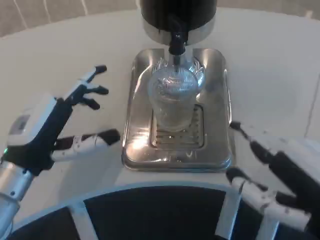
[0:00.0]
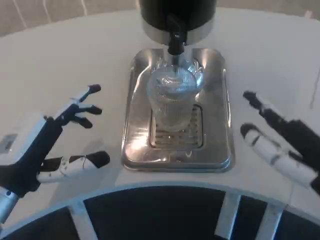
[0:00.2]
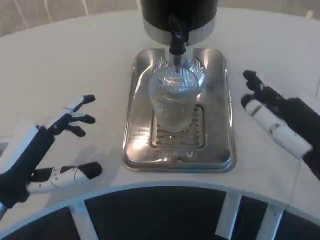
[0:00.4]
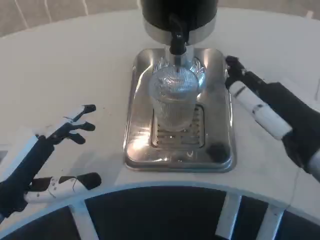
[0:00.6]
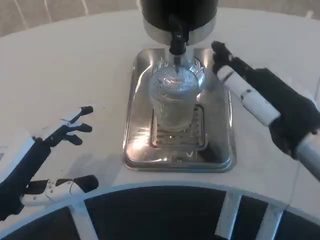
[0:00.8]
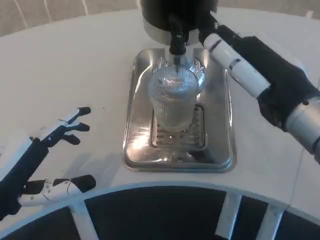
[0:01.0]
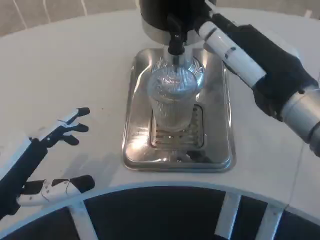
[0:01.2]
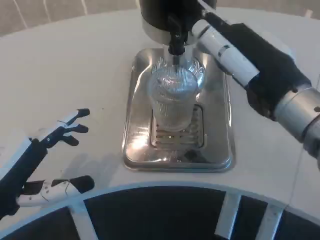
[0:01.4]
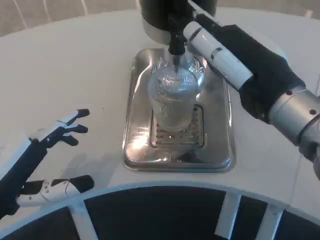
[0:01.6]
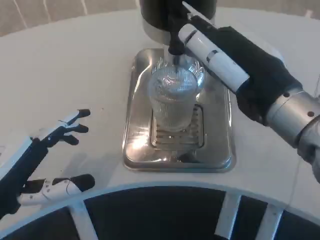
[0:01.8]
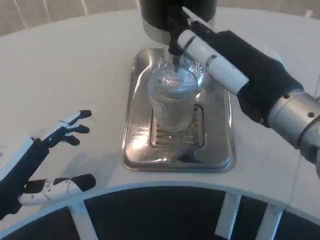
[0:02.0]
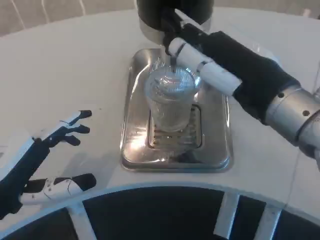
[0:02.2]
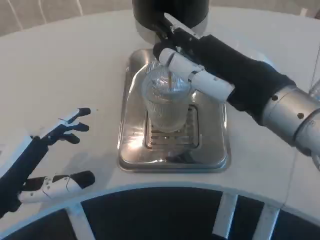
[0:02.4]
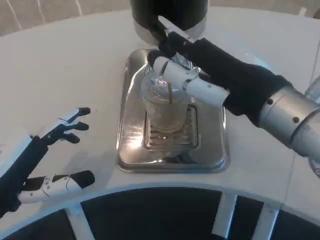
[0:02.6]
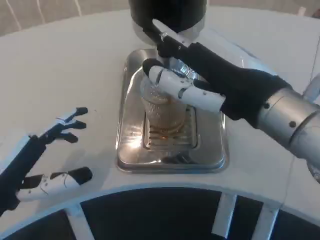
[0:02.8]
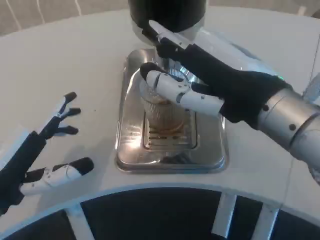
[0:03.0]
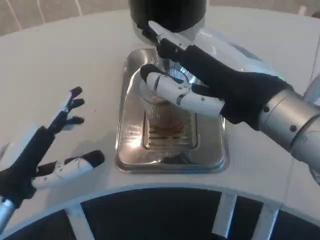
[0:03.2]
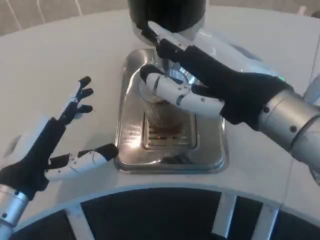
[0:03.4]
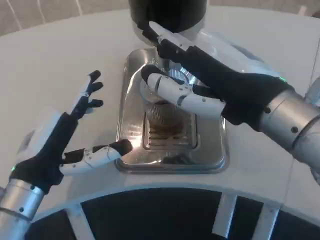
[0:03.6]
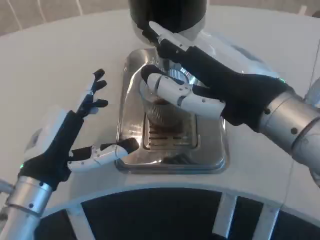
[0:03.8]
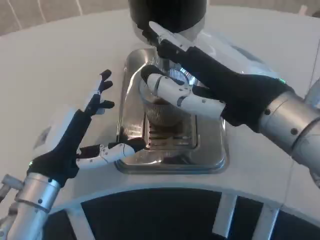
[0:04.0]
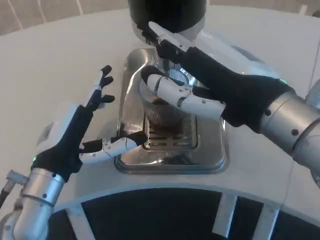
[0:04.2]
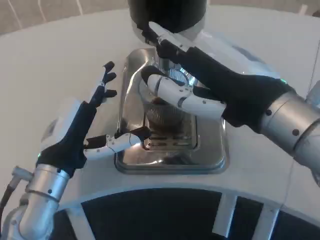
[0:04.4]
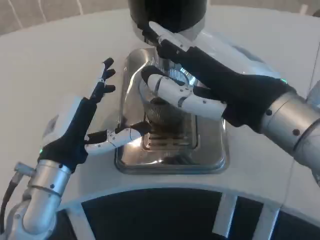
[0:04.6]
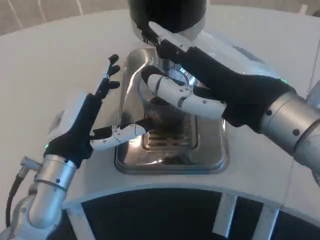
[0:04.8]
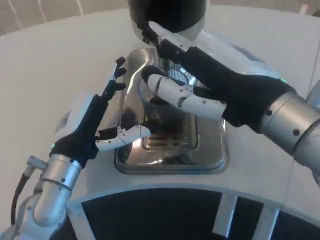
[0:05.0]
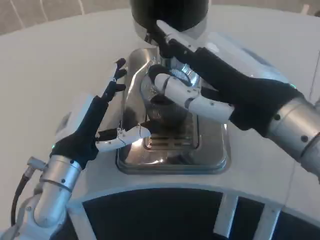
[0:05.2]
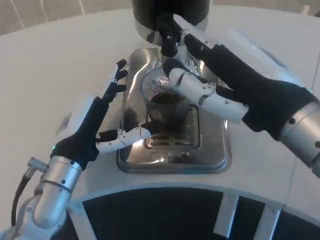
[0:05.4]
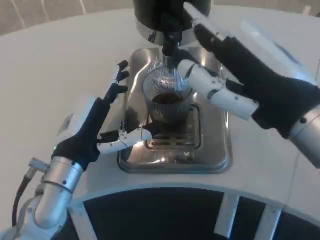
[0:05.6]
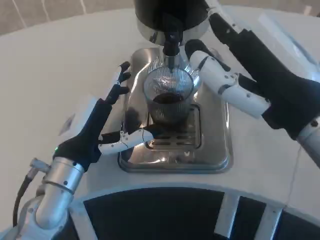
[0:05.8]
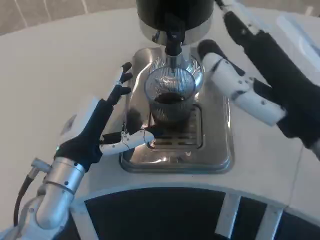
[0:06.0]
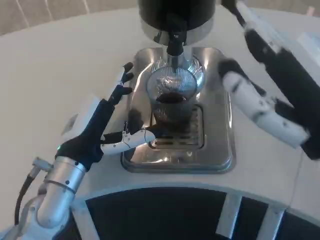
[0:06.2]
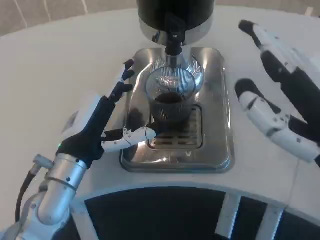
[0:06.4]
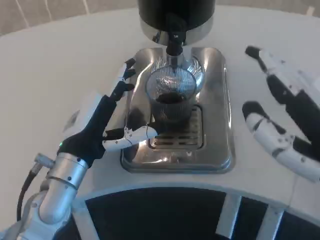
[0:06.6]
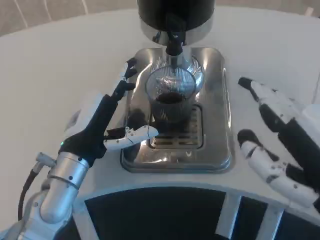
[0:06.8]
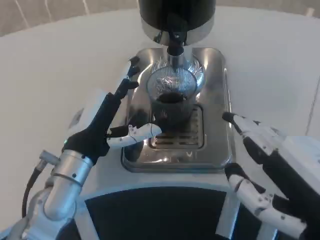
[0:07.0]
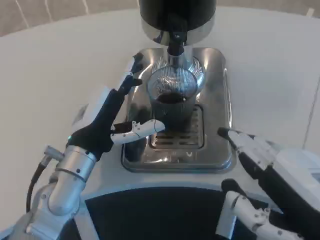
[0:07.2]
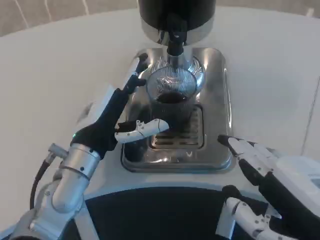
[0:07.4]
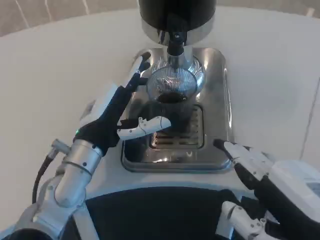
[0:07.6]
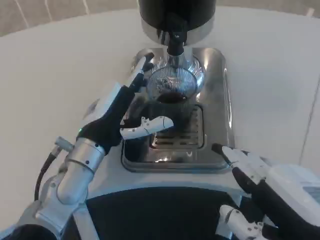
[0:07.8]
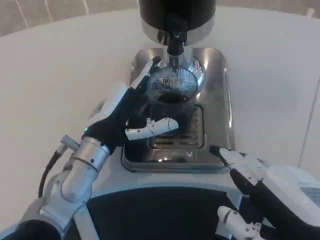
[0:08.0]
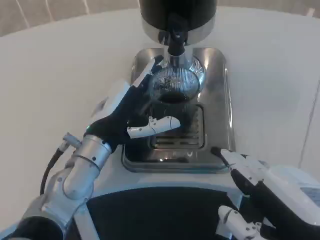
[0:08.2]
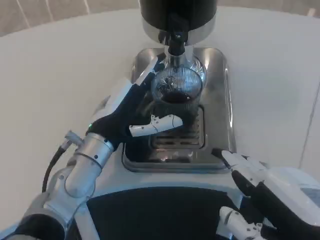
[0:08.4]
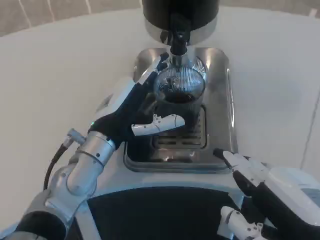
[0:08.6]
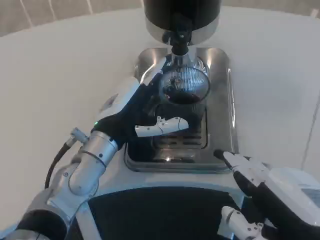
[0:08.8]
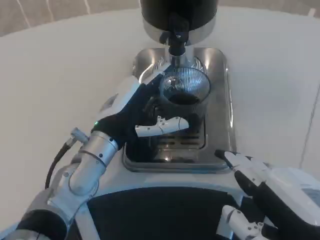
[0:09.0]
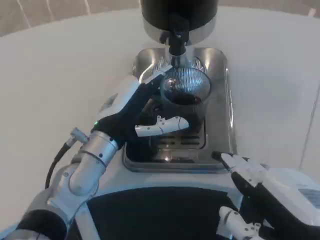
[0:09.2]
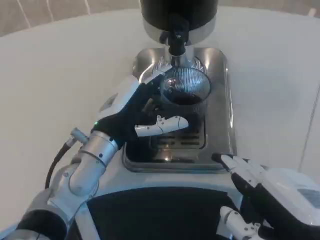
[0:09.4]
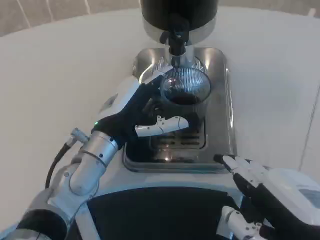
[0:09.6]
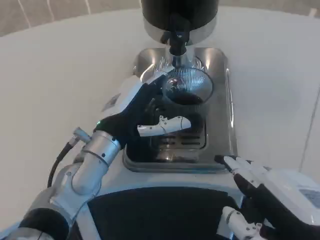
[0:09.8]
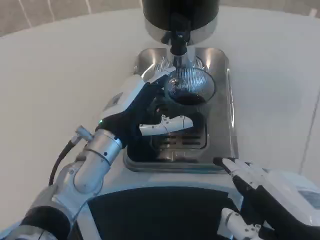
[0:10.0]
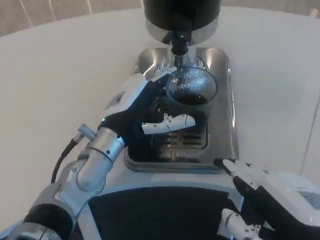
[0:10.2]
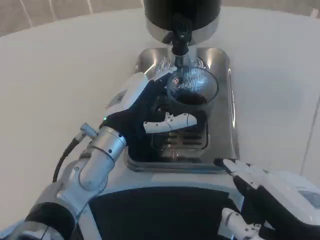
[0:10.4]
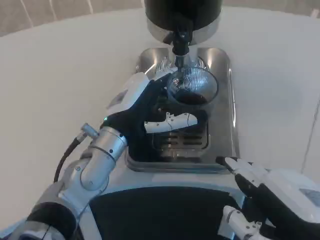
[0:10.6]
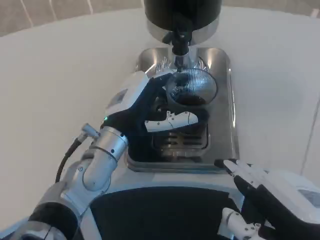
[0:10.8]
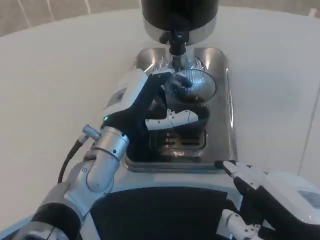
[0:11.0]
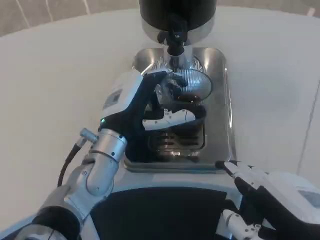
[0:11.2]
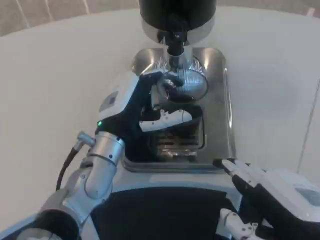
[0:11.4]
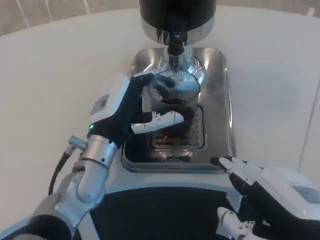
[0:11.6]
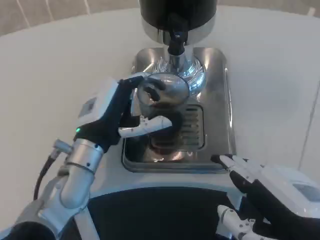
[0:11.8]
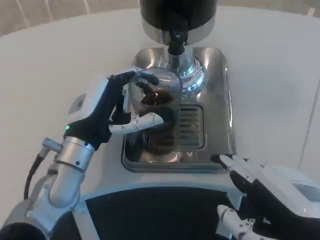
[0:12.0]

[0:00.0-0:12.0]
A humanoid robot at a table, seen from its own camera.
Task of the whole recording: Grasp the cup under the faucet to collect the drink, then remove the cup.
0:00.0 to 0:01.6: The left hand moves backward, about 5 cm, while the right hand goes approximately 10 cm forward and upward.
0:03.0 to 0:04.4: The left hand heads to the right and forward, covering approximately 10 cm.
0:04.4 to 0:06.0: The right hand shifts by some 5 cm.
0:06.0 to 0:07.6: The right hand travels downward and backward by about 10 cm.
0:07.6 to 0:09.0: The hands move only a little.
0:09.0 to 0:10.4: The two hands keep their place.

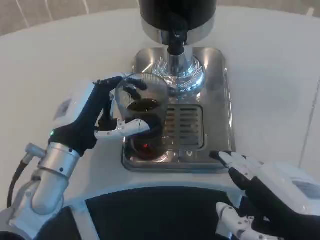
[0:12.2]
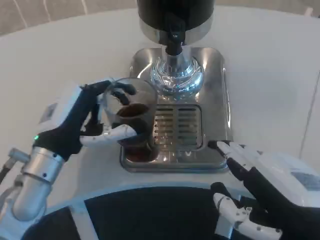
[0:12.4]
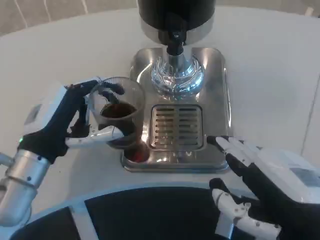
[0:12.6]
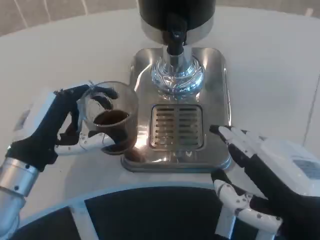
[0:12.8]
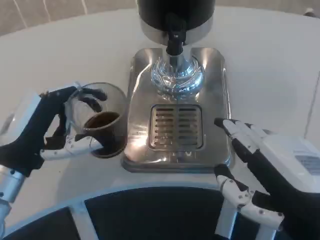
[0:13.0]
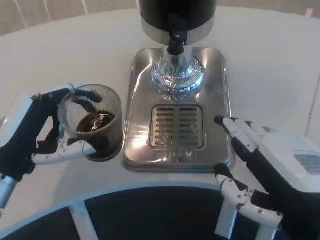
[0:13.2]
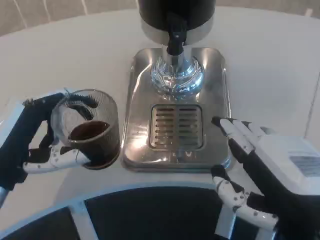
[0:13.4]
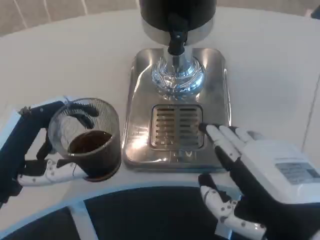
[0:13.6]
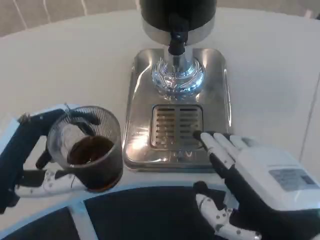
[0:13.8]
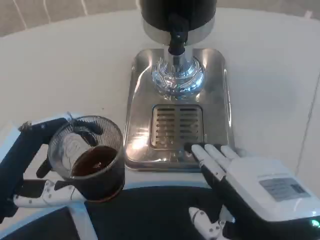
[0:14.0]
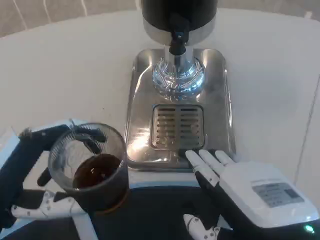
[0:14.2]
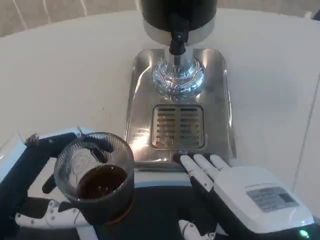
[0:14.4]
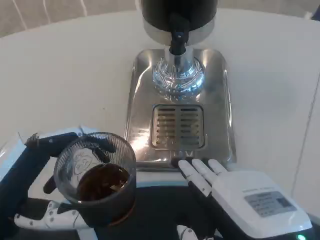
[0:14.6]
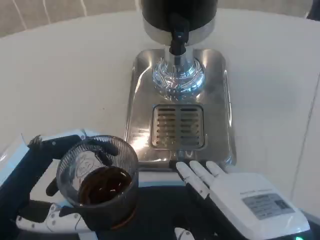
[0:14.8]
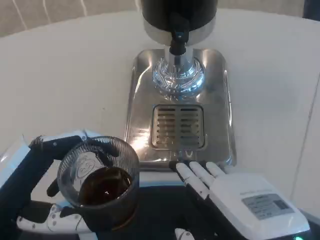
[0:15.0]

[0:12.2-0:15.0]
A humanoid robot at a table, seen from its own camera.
Task of the whole recording: Grasp the cup under the faucet to collect the drink, then remove the cup.
0:12.2 to 0:13.6: The left hand travels backward and to the left by about 10 cm.

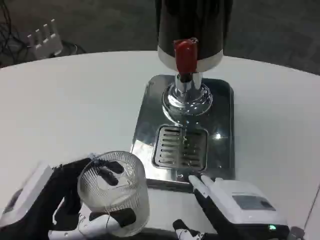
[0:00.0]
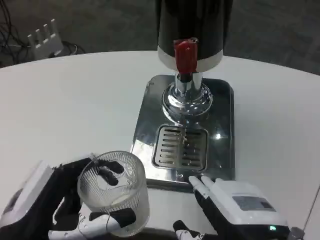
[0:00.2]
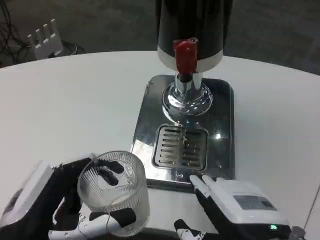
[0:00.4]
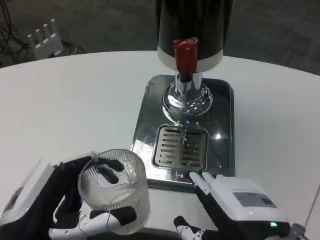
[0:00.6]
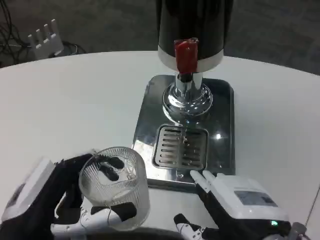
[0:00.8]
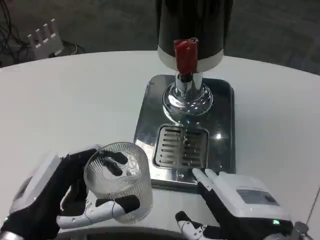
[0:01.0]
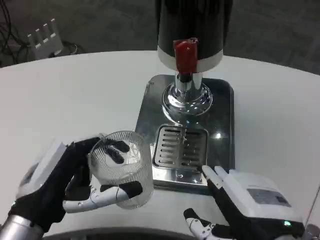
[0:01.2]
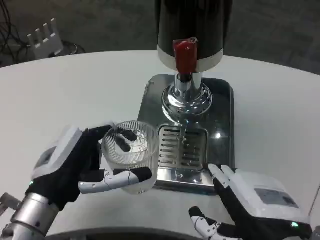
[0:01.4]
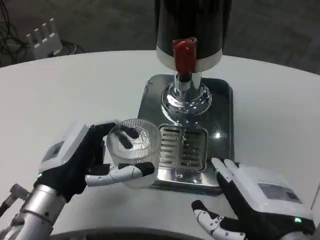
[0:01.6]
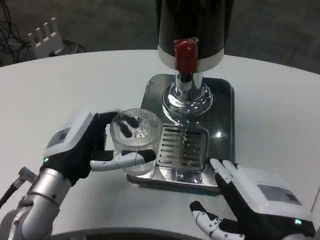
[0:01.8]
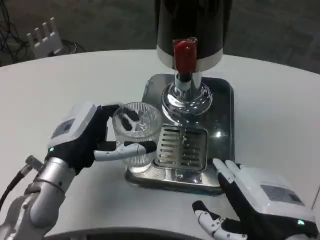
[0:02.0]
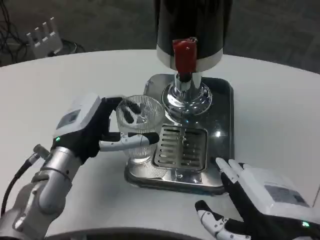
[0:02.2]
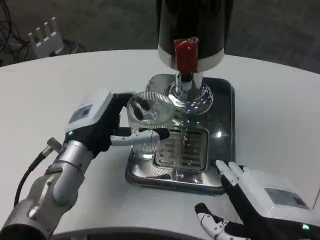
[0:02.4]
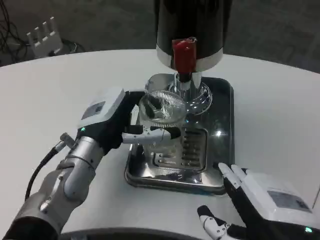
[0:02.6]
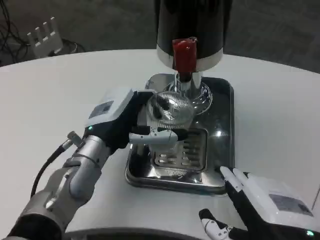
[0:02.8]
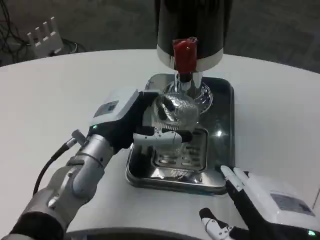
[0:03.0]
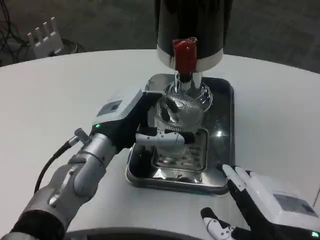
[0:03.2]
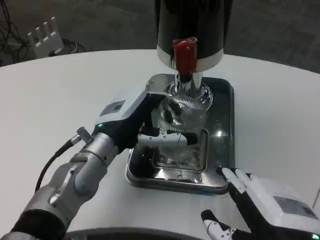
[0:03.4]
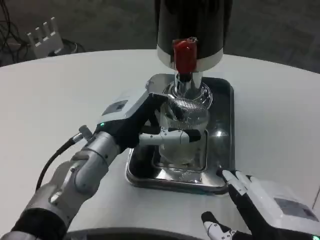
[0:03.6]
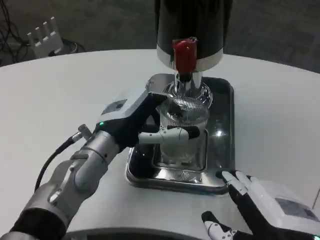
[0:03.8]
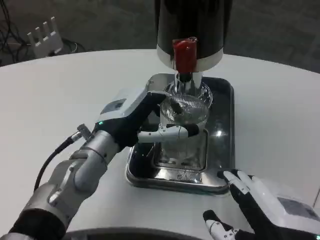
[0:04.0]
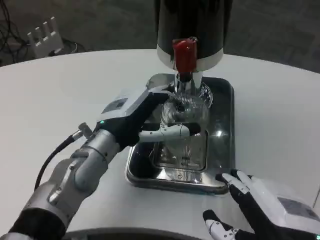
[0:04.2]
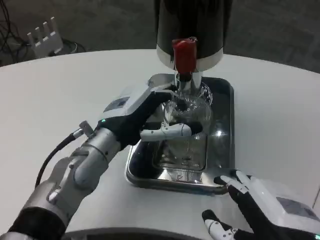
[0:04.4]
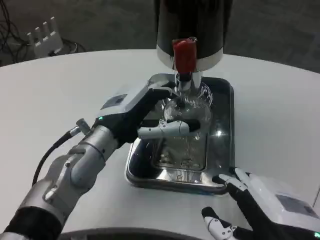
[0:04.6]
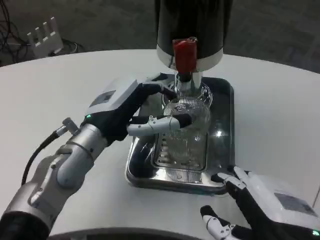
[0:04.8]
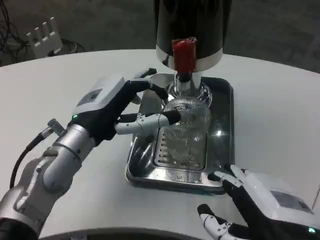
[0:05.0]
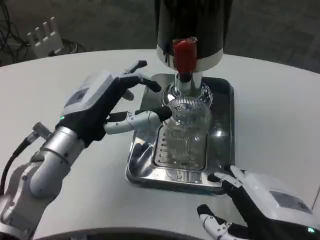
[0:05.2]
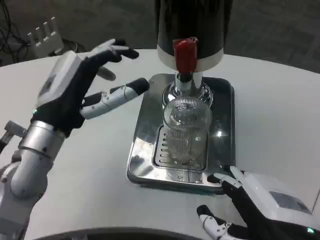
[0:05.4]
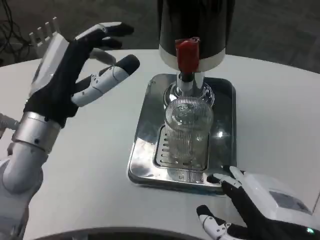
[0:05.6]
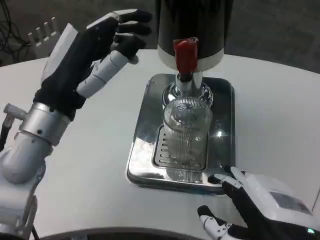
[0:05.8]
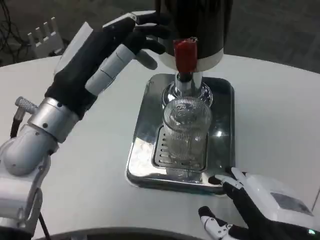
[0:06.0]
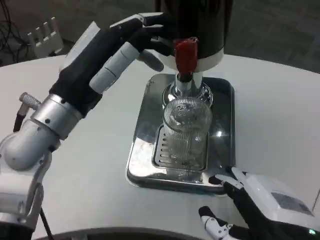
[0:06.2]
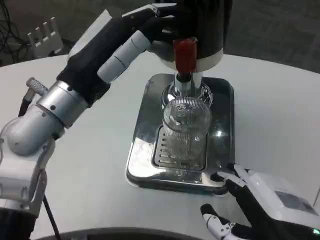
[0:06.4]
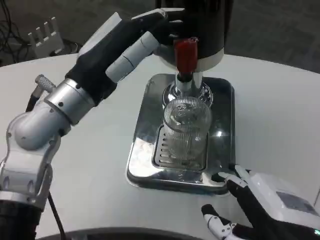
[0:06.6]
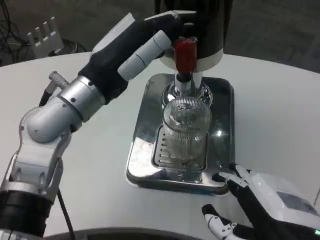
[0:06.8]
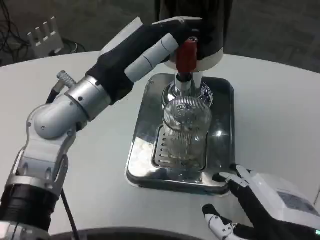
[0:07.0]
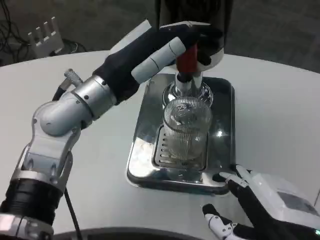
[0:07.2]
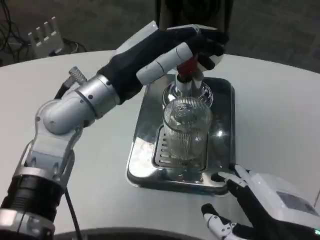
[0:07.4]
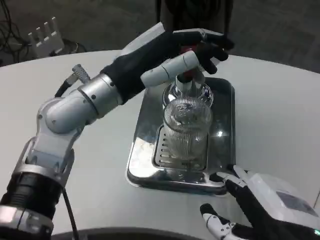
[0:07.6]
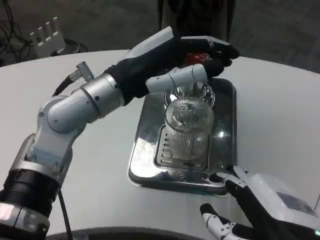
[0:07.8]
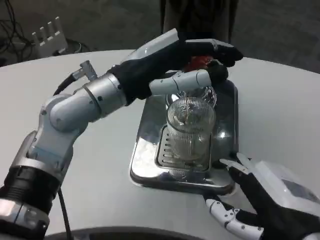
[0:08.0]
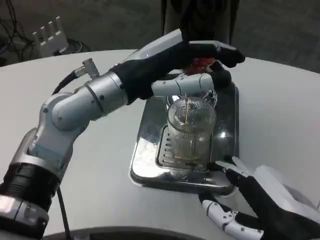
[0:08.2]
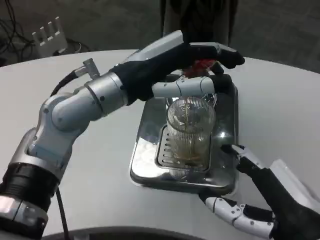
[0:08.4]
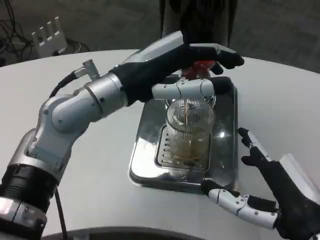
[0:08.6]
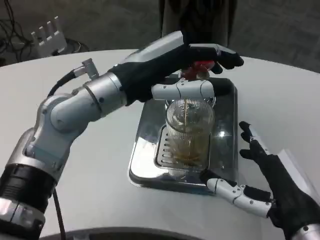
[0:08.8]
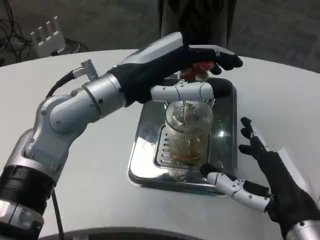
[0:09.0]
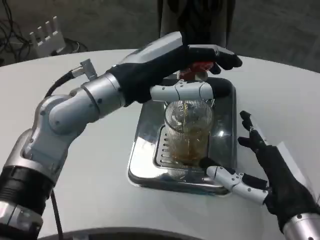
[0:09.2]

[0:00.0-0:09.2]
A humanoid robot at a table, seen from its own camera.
Task of the whole recording: Grasp the cup under the faucet to collect the drink, then remove the cup.
0:00.0 to 0:01.6: The left hand moves forward, about 10 cm.
0:01.6 to 0:03.0: The left hand travels forward and to the right by roughly 10 cm.
0:03.0 to 0:04.6: The hands stay close to where they were, moving slightly.
0:04.6 to 0:06.2: The left hand heads upward, covering about 5 cm.
0:06.2 to 0:07.6: The left hand ends up approximately 5 cm from where it was.
0:07.6 to 0:09.2: The right hand travels forward by approximately 5 cm.
